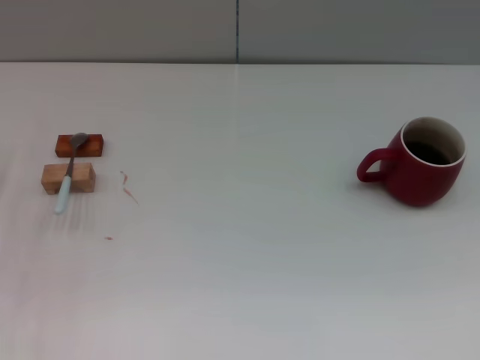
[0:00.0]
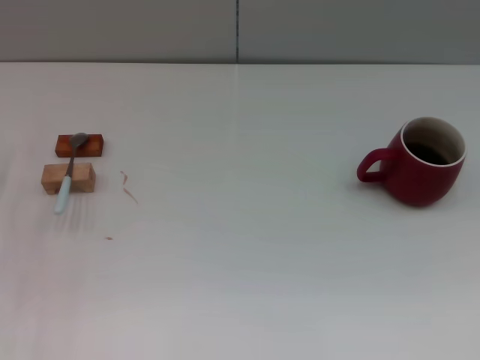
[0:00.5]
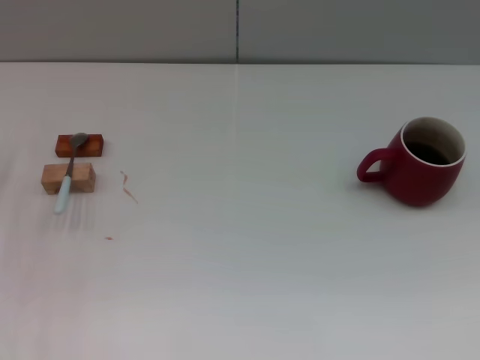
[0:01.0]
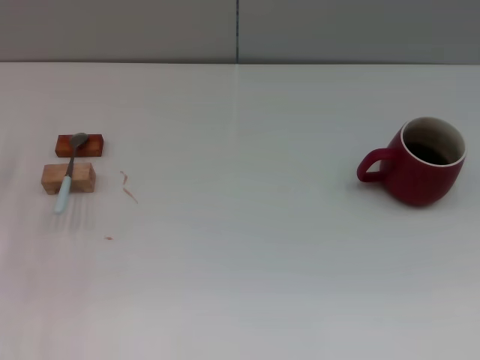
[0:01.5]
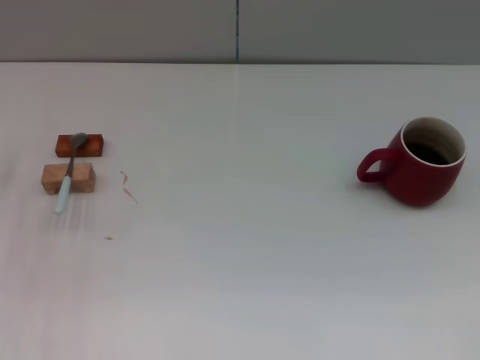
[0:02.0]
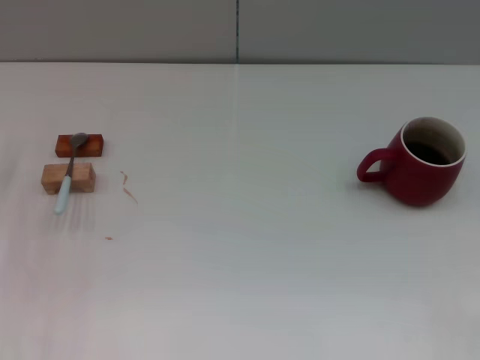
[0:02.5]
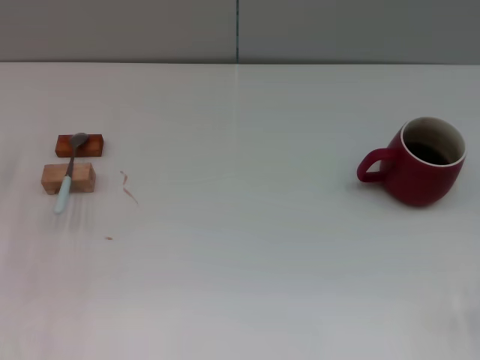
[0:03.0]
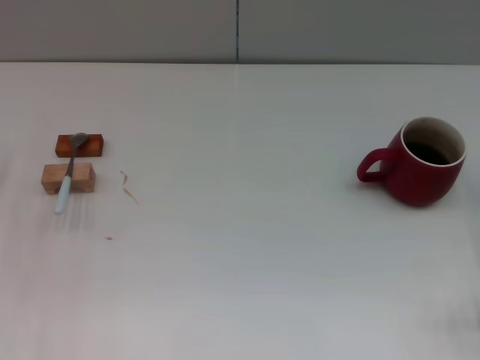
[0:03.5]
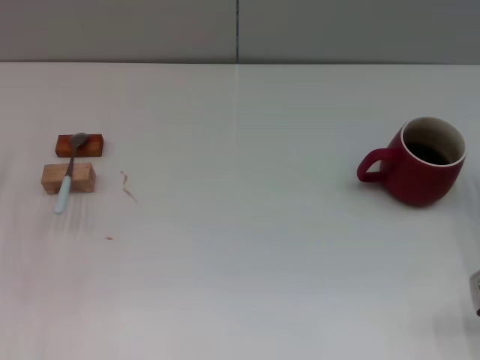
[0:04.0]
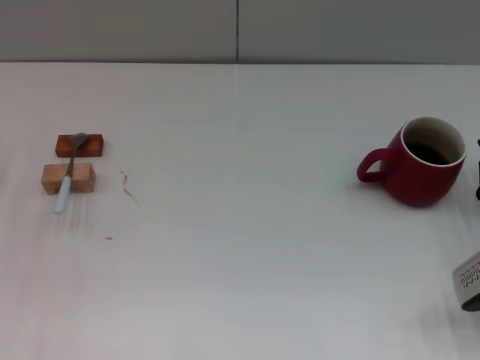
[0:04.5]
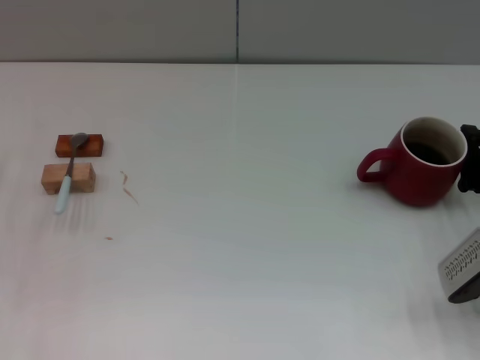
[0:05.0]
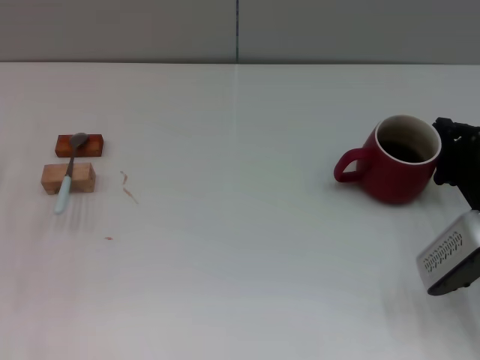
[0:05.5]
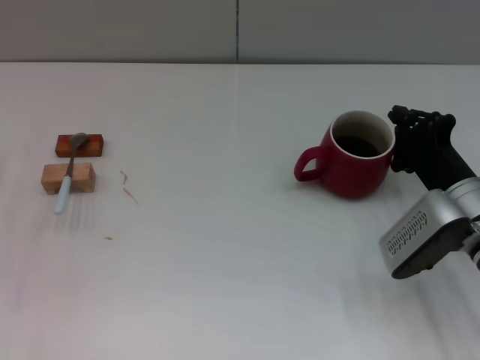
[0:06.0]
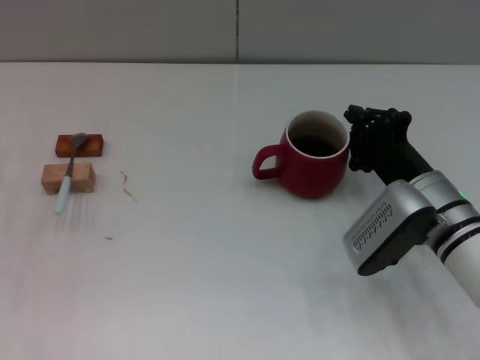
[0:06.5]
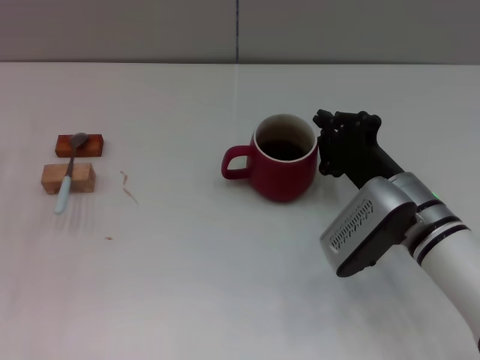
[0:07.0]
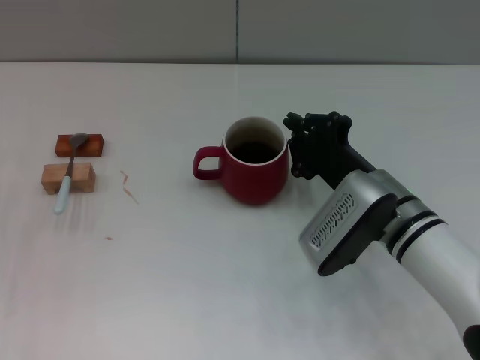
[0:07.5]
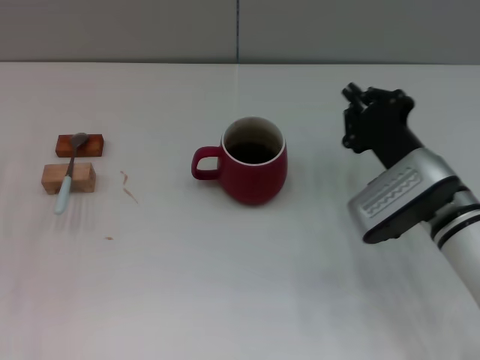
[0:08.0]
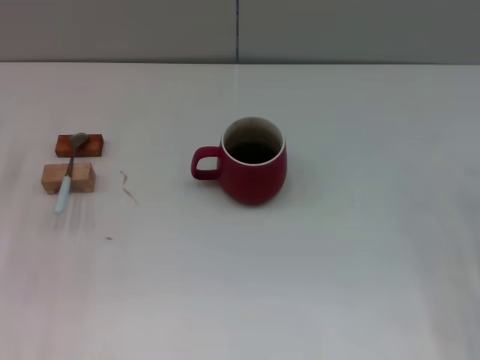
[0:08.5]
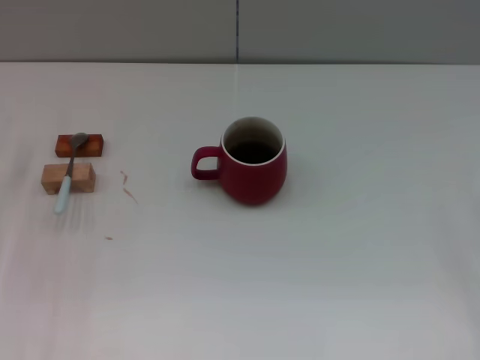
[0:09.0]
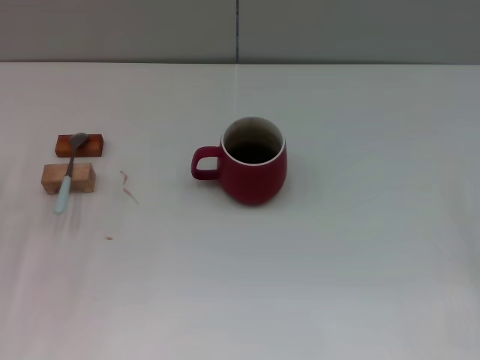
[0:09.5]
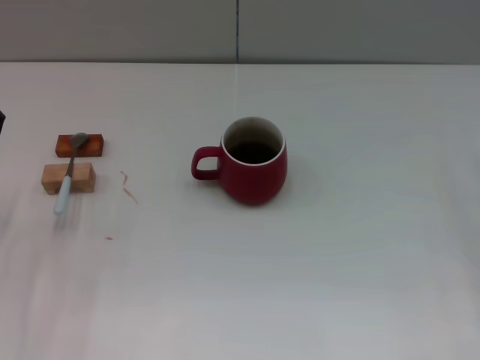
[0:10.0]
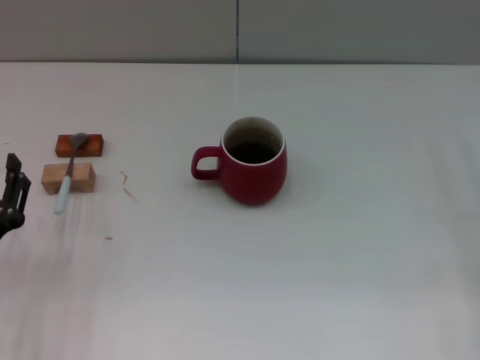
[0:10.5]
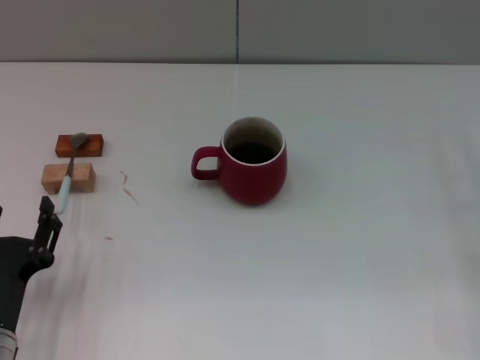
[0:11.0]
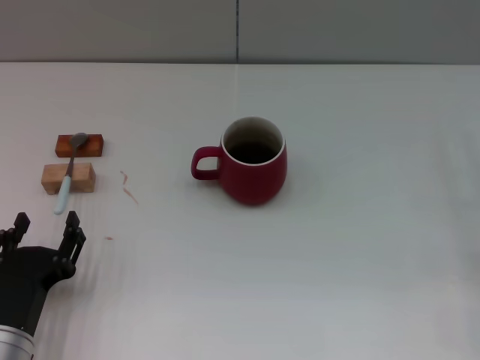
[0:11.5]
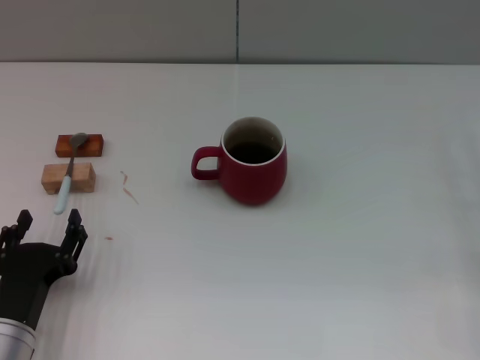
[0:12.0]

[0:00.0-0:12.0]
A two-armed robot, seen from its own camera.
Task of the whole recording: Move the red cup to the center, lift the blue spoon, stir it three times in the cup, and put the spoon into the cup.
Step, 0:00.0 to 0:08.0: Move the cup with coffee to the center of view with the right gripper.
0:02.0 to 0:04.0: The right gripper moves to the left, approximately 10 cm.
0:04.0 to 0:06.0: The right gripper goes roughly 10 cm to the left and forward.
0:08.0 to 0:10.0: The right gripper moves to the right, some 20 cm, and opens up.
0:10.0 to 0:12.0: The left gripper is displaced backward and to the right by roughly 10 cm.

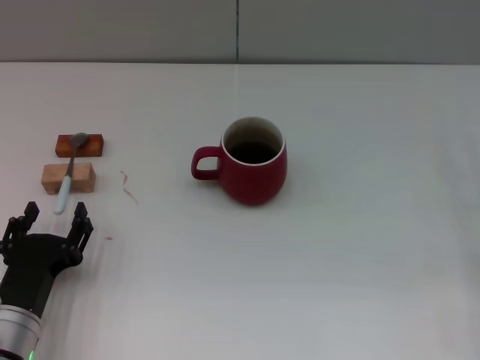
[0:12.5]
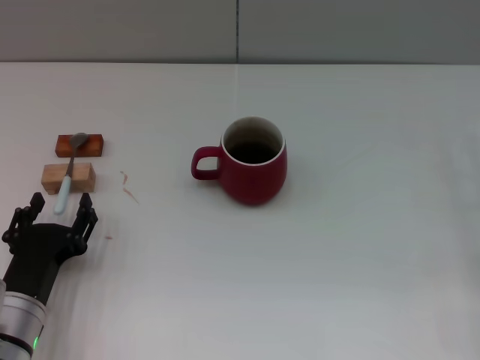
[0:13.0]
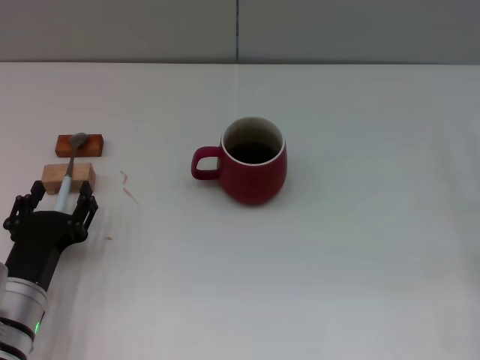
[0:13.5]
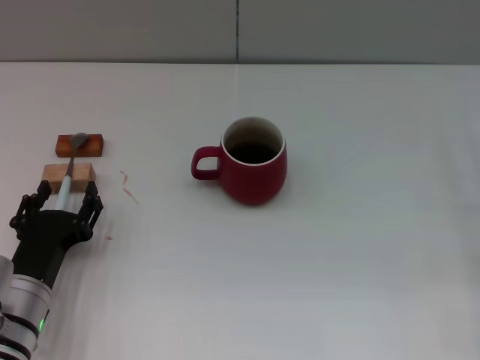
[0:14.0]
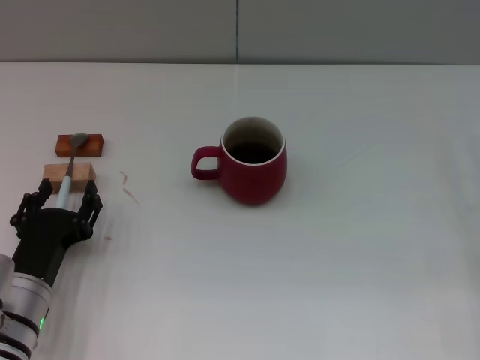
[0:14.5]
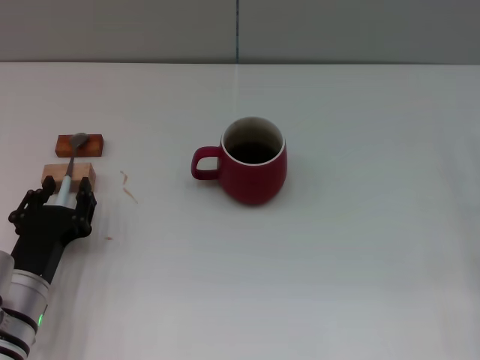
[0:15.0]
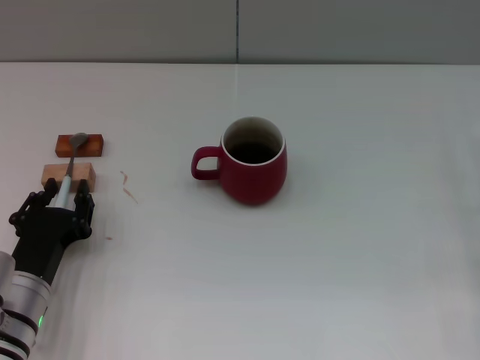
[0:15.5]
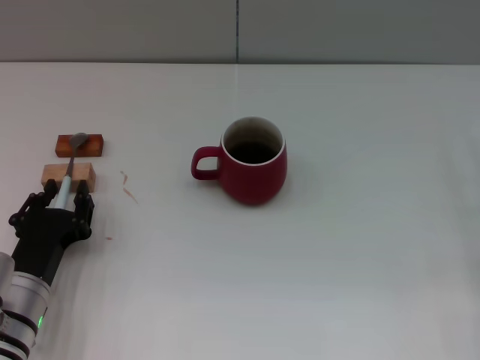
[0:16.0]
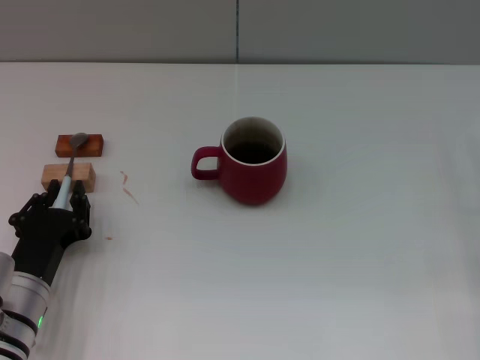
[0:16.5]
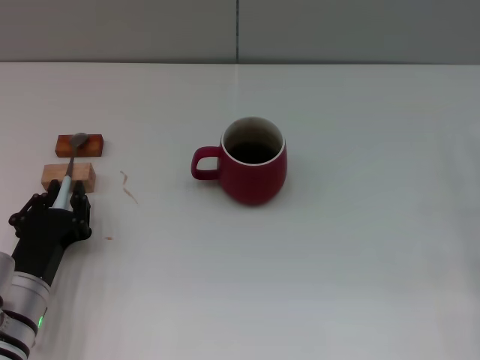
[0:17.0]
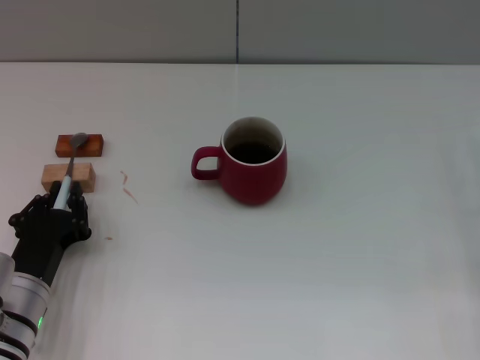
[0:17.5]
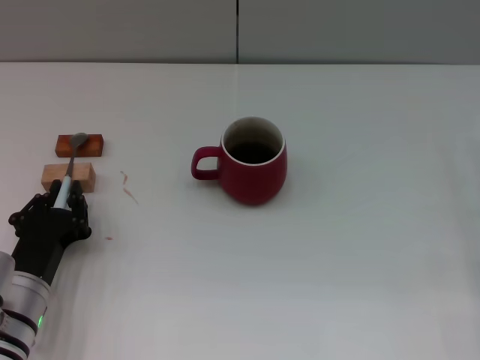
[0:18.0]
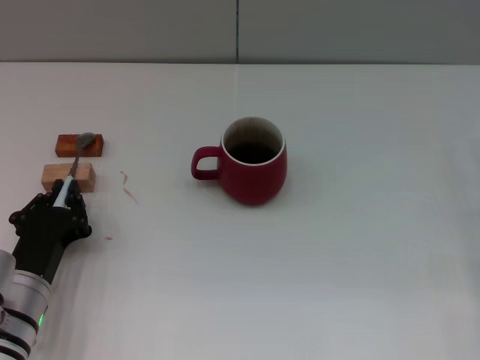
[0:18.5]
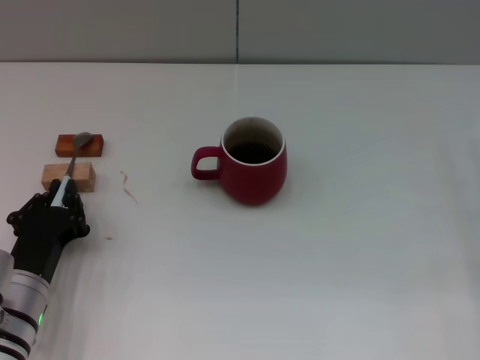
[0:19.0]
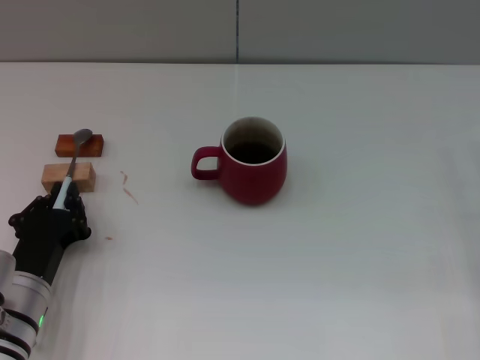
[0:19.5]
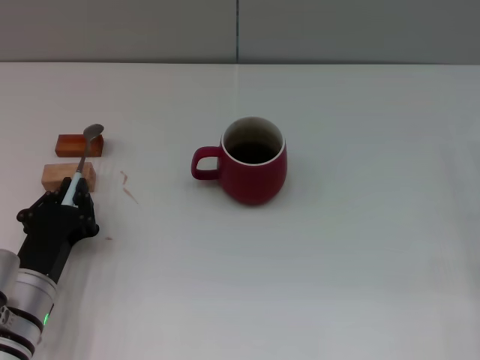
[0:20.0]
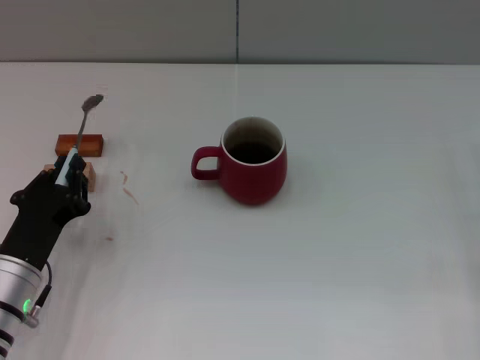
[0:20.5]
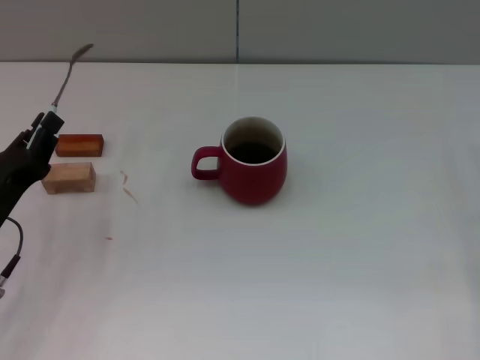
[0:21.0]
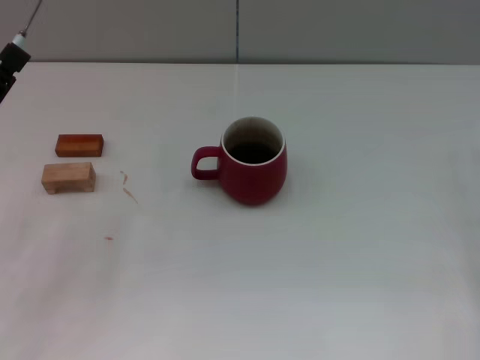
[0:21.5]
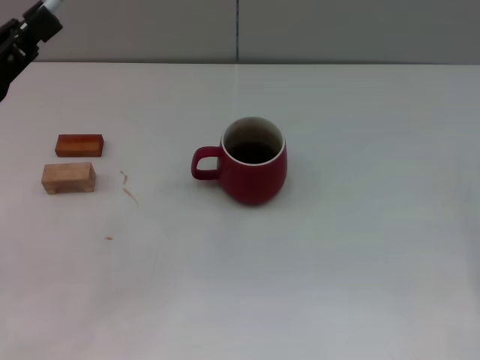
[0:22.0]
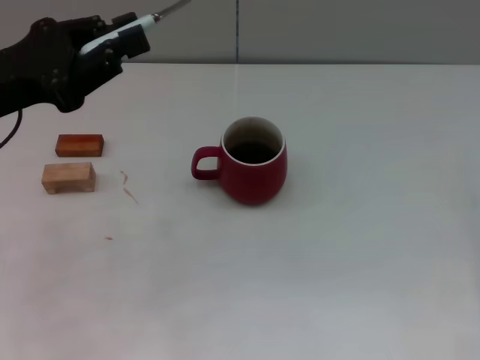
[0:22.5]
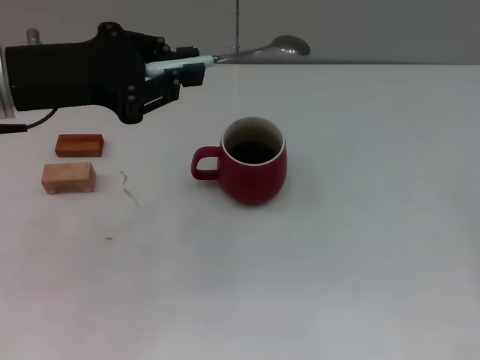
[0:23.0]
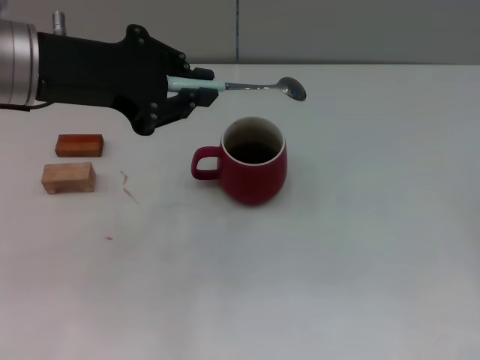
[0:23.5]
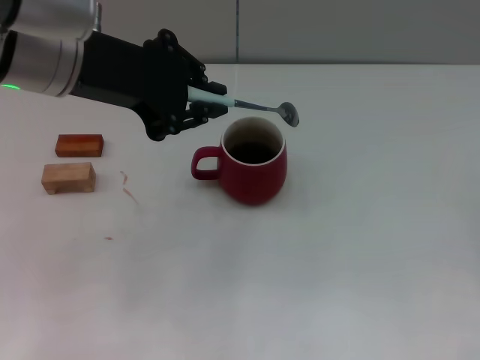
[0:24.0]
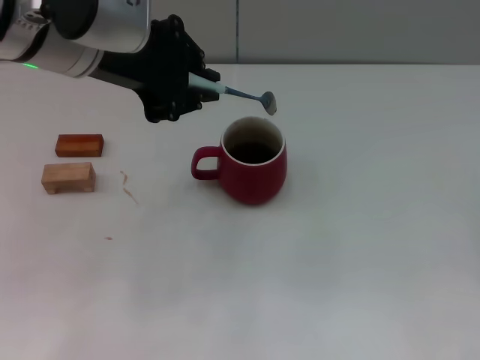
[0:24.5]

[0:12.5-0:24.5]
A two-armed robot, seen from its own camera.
Task of the whole recording: Move the red cup to the center, lift the blue spoon, stir it three times in the cup, and put the spoon into the cup.
Step, 0:12.5 to 0:20.5: Pick up the spoon with the left gripper.
0:12.5 to 0:14.5: The grippers move only a little.
0:14.5 to 0:16.5: The left gripper closes.
0:16.5 to 0:18.5: Both grippers stay put.
0:18.5 to 0:20.5: There are only small adjustments of the grippers.
0:20.5 to 0:22.5: The left gripper goes some 20 cm upward and forward.
0:22.5 to 0:24.5: The left gripper moves to the right and upward, about 15 cm.

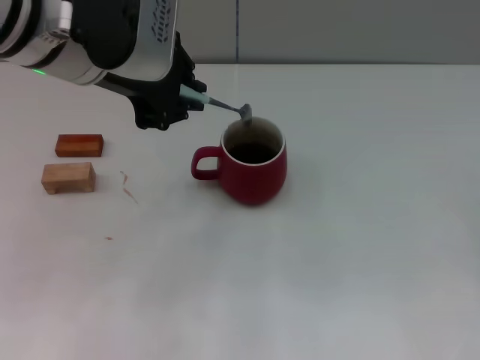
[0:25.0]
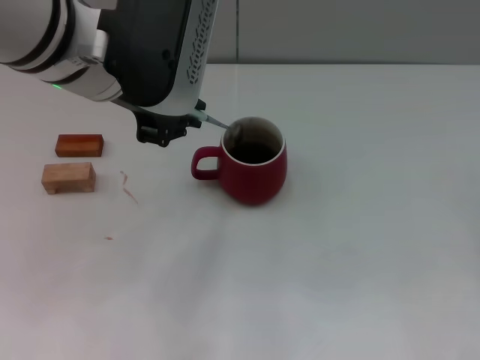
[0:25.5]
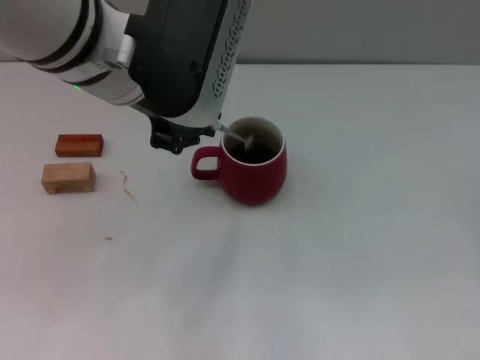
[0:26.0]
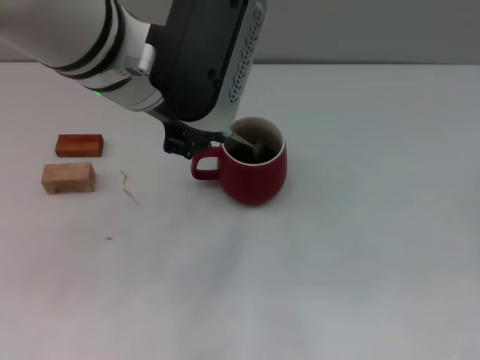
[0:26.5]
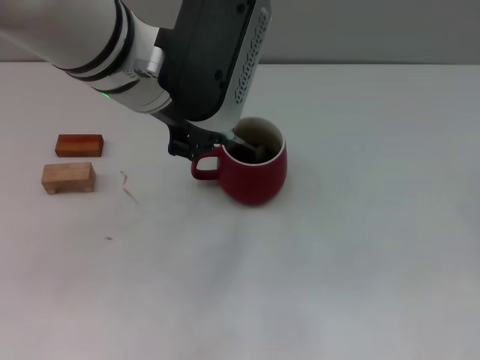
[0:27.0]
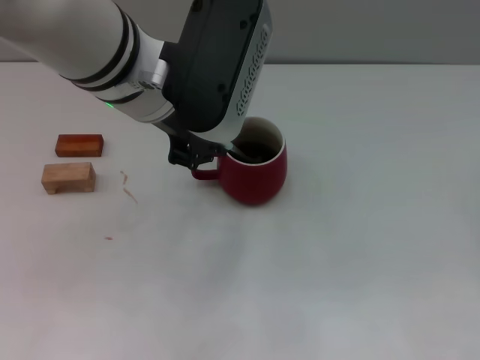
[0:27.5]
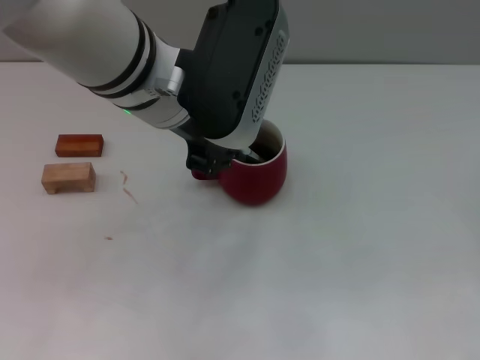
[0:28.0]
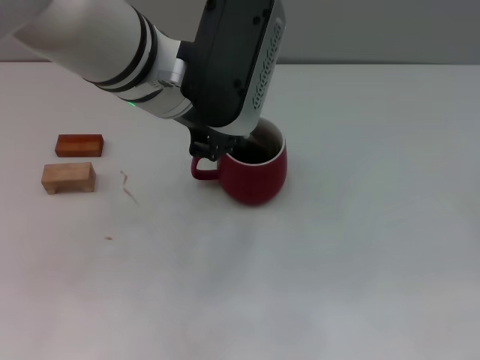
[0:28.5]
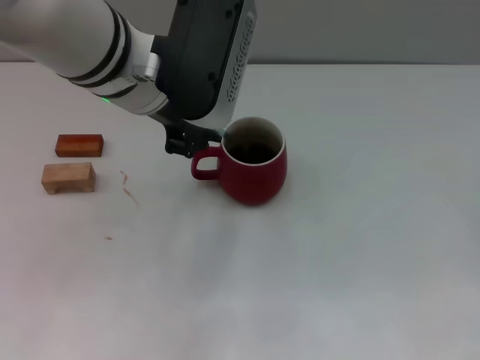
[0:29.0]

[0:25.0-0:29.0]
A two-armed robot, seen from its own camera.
Task of the whole recording: Move the red cup to the center, lift the blue spoon, stir it three times in the cup, and put the spoon into the cup.
0:25.0 to 0:27.0: The left gripper moves about 5 cm.
0:27.0 to 0:29.0: The grippers stay close to where they were, moving slightly.
